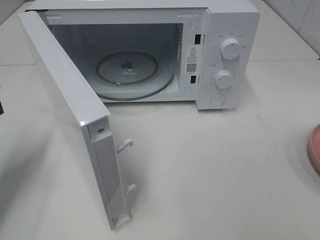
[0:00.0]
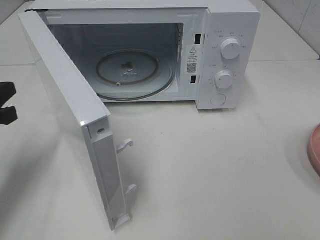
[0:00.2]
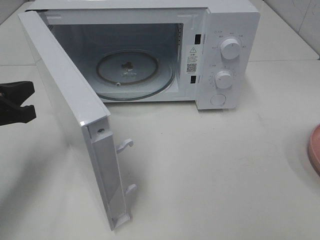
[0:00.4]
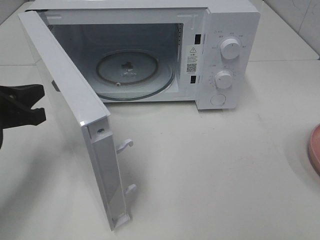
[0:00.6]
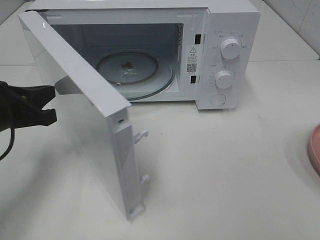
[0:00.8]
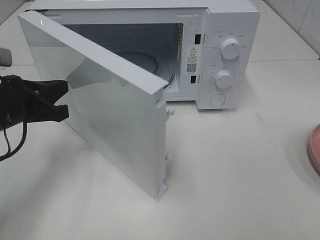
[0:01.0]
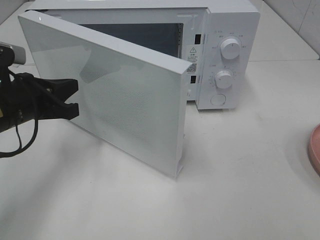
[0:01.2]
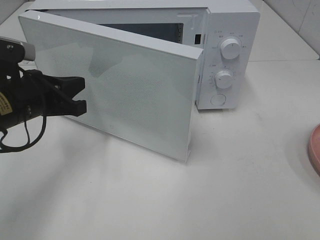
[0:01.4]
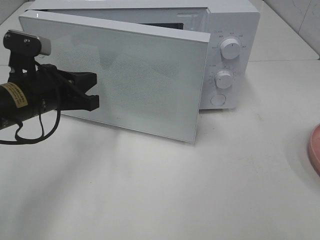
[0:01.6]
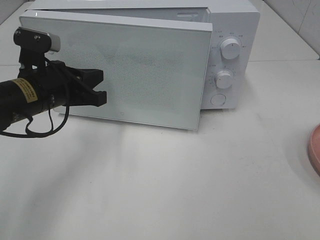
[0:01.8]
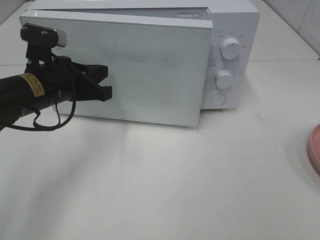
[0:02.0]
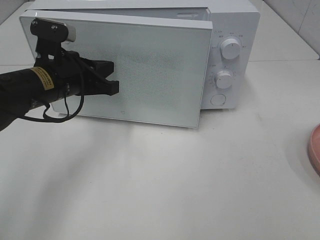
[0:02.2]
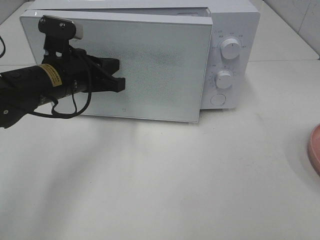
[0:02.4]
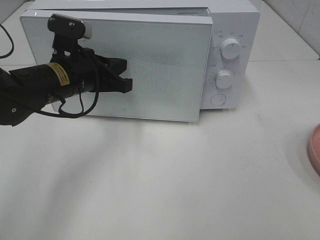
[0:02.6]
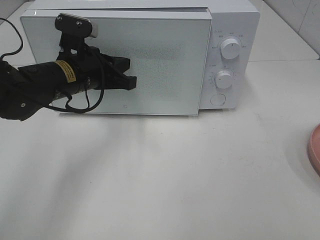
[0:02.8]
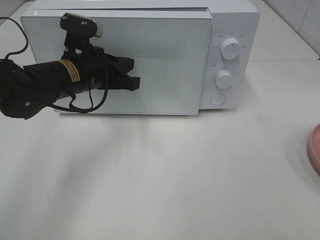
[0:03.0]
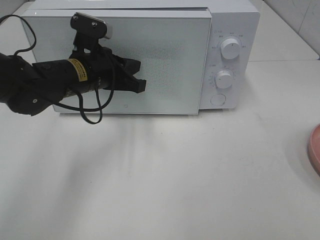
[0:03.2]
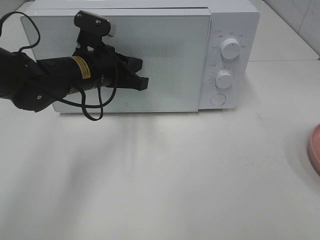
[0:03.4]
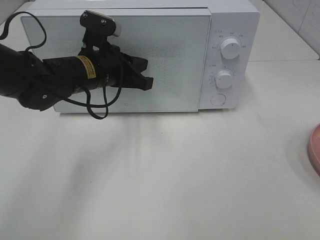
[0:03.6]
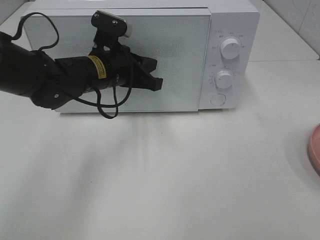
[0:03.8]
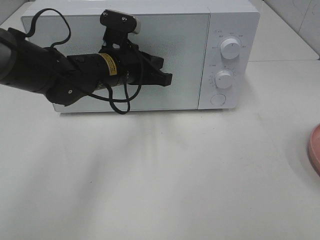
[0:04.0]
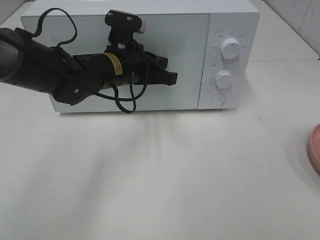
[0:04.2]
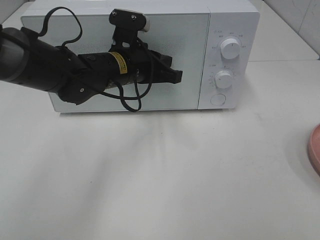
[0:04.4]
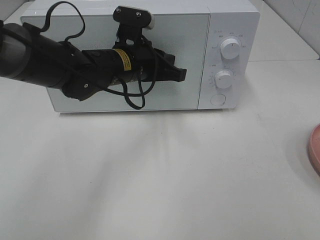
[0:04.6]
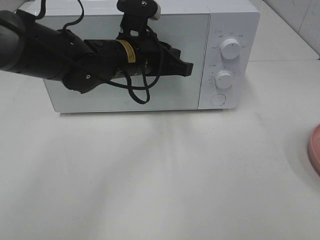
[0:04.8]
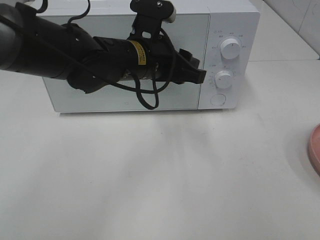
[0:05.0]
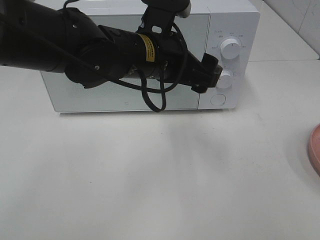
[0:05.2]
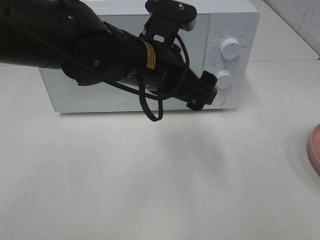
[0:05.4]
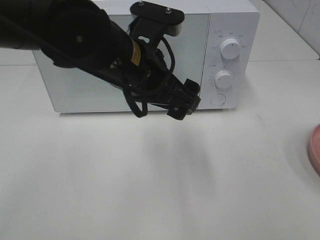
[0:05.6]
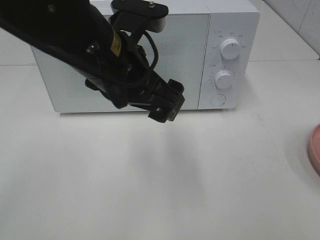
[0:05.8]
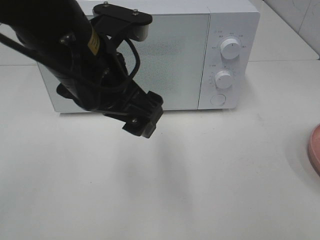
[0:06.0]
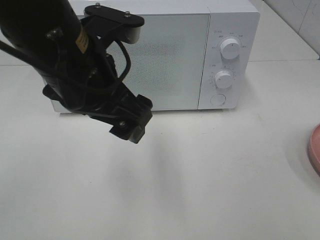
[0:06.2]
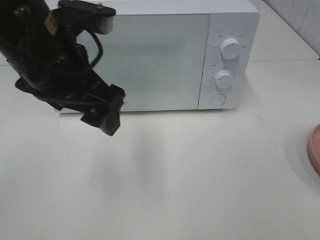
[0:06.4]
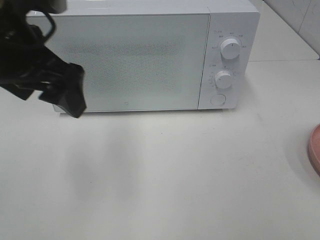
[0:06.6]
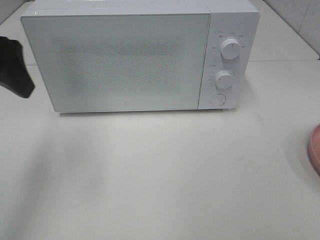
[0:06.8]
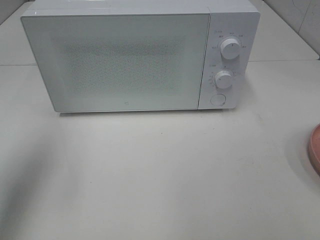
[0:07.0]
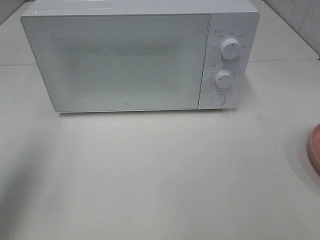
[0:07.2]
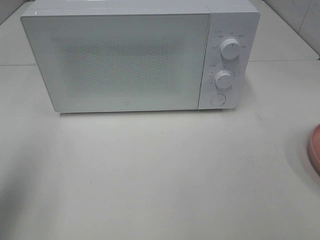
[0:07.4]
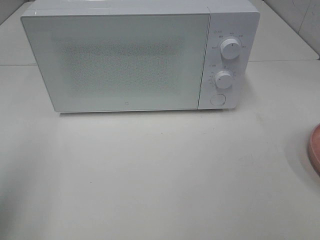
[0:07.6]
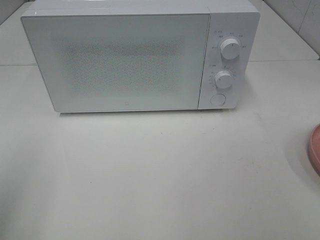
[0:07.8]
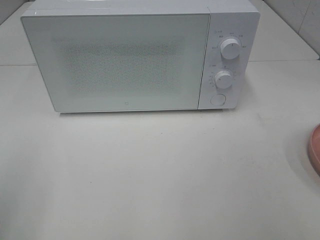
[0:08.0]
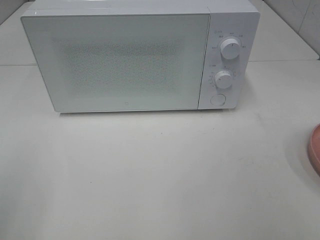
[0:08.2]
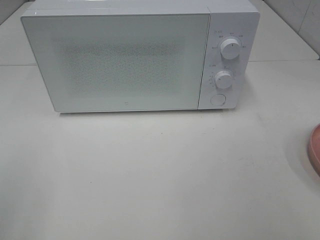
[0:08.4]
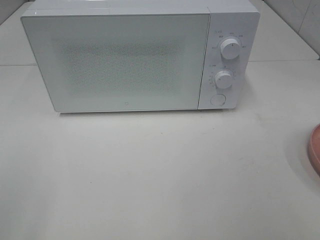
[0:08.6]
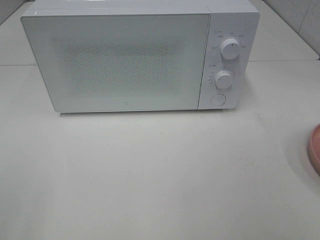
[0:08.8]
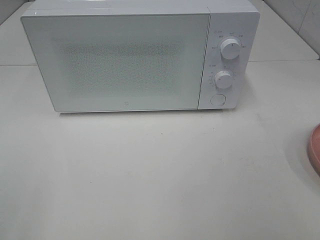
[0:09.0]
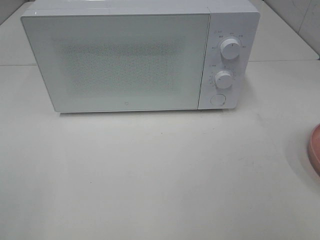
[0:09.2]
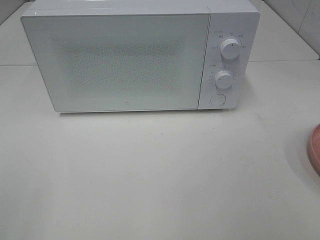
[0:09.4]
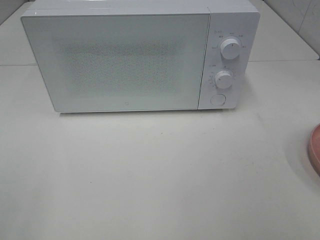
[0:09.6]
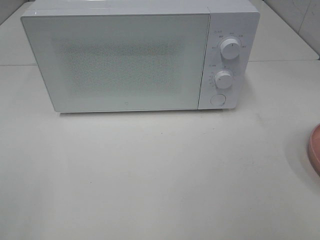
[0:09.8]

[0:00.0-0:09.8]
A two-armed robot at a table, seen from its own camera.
Task of the whole recording: Heat the burger.
Step, 0.0 to 4.8 s: Left hand: close the microwave door.
0.0 to 1.4 s: The left gripper shifts approximately 10 cm to the right.
1.4 to 2.8 s: The left gripper moves to the right and forward, roughly 10 cm.
2.8 to 4.2 s: The left gripper is displaced to the right by some 5 cm.
4.2 to 5.6 s: The left gripper travels backward and upward by roughly 15 cm, and opens up.
5.6 to 7.0 s: The left gripper moves to the left, roughly 25 cm.
7.0 to 8.4 s: The left gripper moves backward, approximately 20 cm.

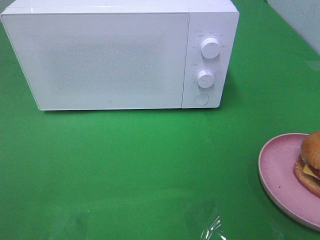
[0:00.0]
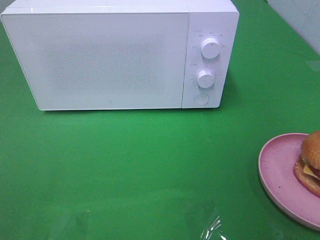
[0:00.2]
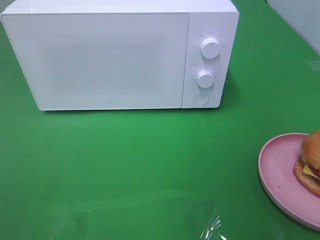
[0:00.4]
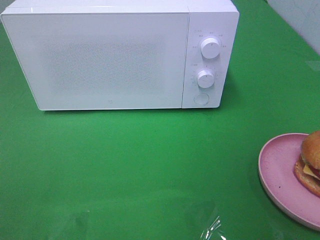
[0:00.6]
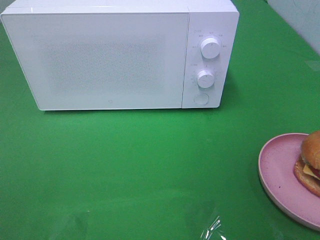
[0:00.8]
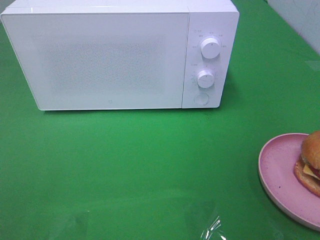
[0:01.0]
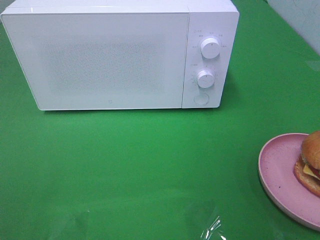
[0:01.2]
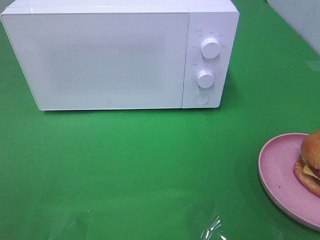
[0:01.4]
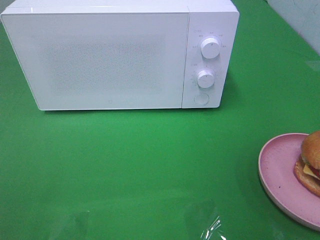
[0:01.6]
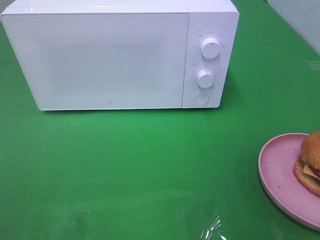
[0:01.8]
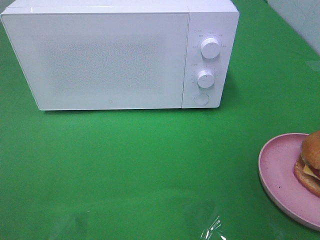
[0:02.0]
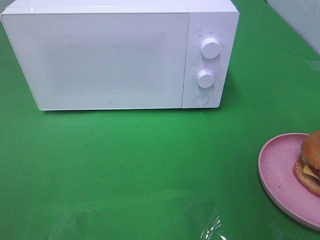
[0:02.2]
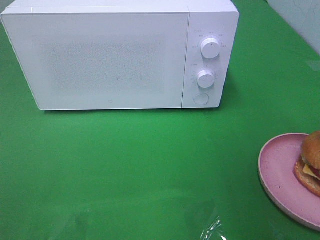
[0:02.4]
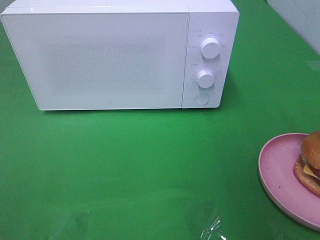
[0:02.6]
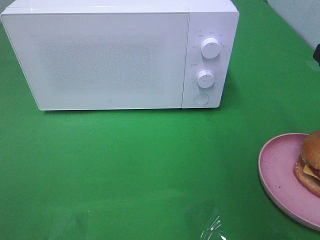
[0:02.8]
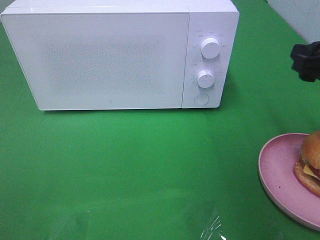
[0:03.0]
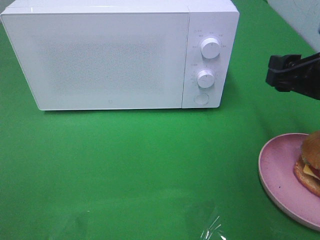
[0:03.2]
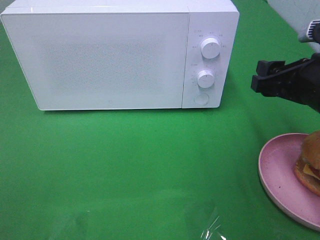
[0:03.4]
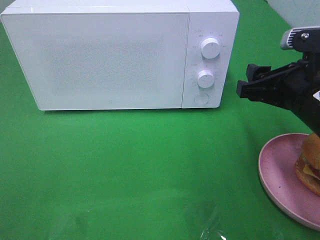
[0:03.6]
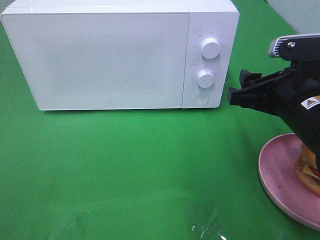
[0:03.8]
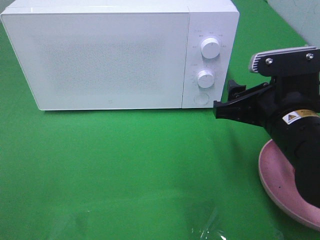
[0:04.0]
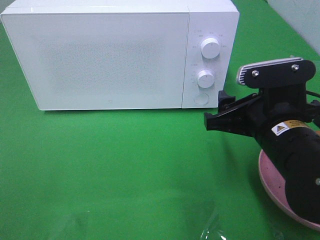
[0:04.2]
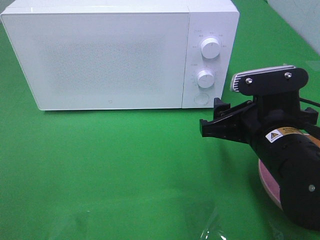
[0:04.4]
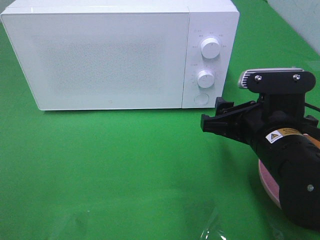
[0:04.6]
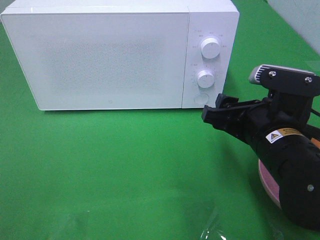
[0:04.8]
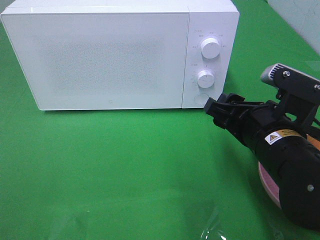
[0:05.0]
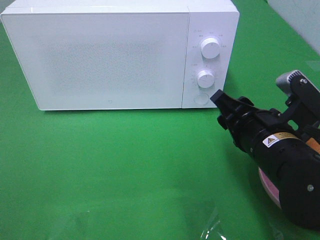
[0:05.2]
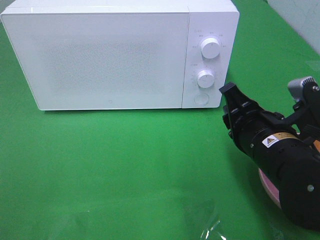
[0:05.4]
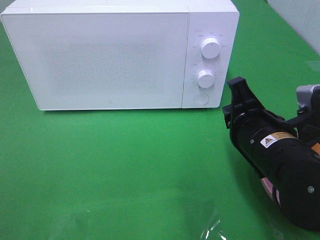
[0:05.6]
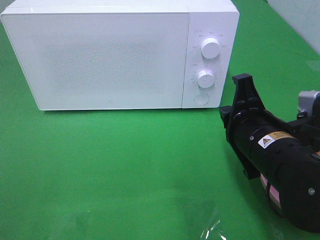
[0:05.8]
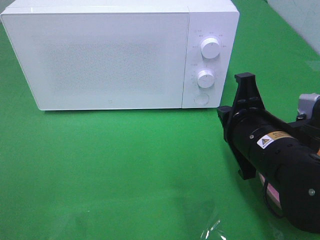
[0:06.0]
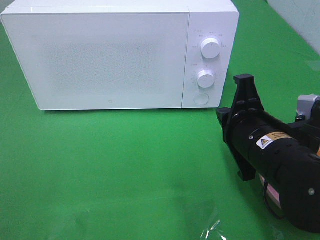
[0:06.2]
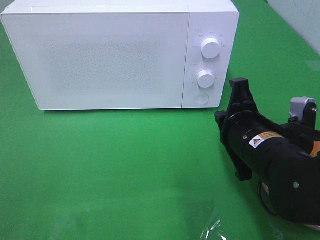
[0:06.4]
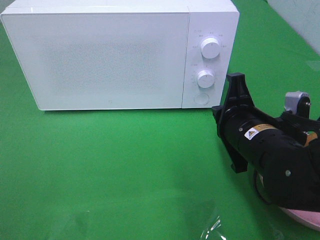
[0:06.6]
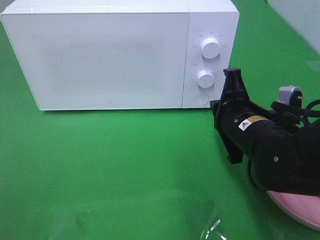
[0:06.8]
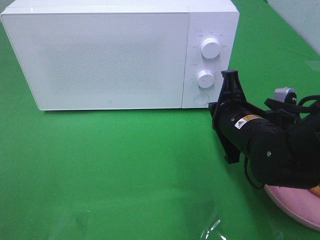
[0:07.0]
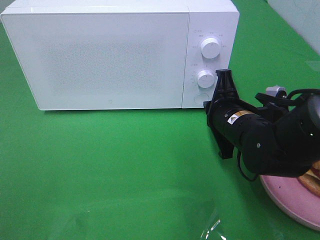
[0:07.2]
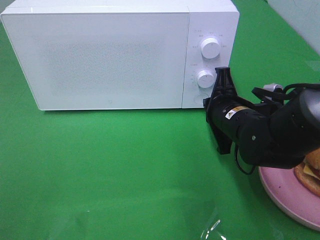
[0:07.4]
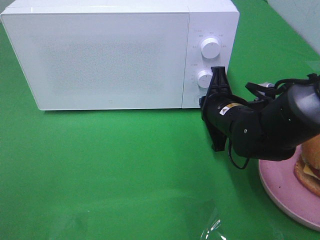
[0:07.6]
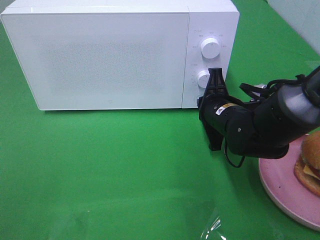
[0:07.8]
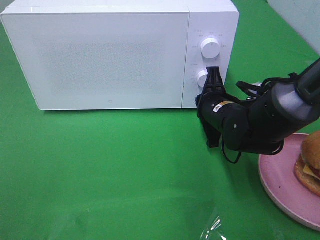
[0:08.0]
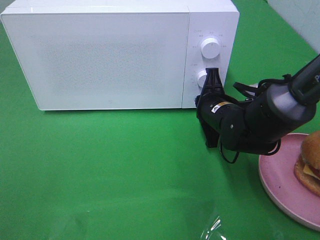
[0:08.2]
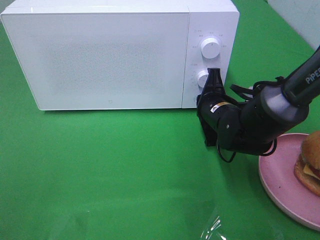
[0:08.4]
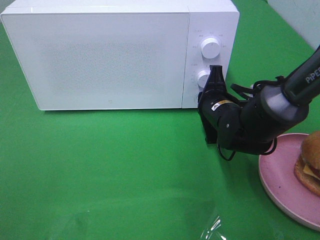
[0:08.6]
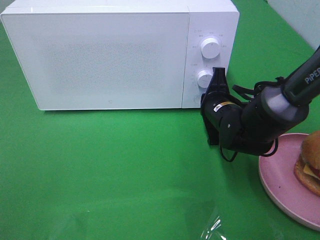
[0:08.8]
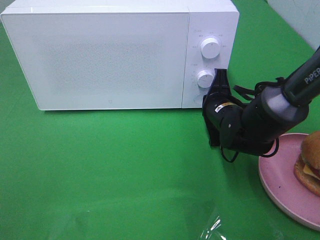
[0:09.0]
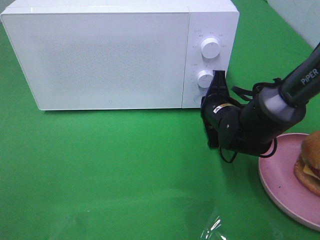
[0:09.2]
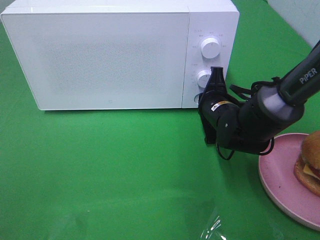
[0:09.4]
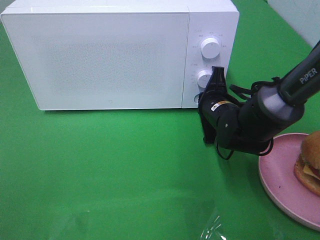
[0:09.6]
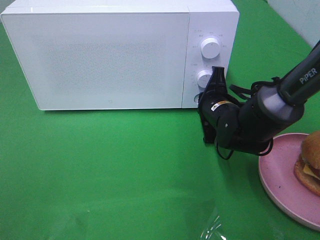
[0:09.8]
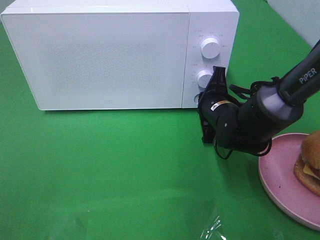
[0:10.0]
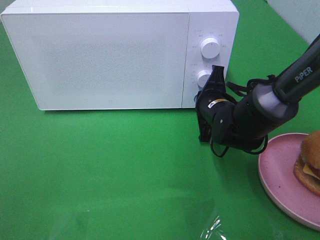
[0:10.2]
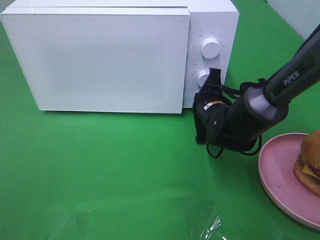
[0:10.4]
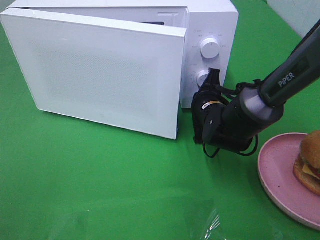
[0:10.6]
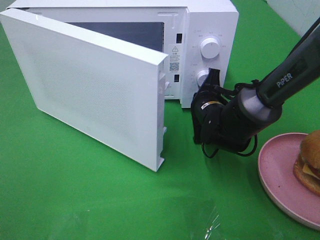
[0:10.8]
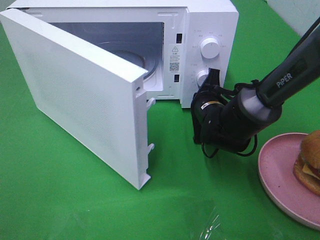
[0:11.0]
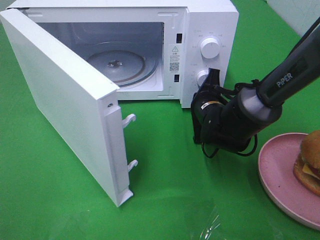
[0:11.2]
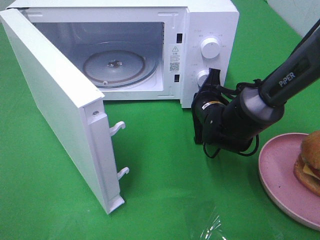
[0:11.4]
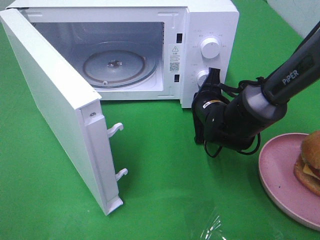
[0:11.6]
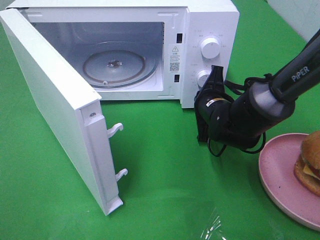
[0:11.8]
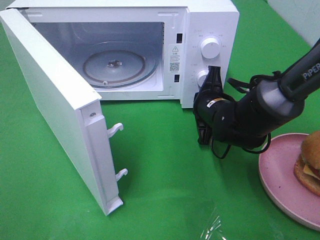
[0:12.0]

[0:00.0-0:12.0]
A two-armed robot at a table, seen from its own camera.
Task of the whole recording: Heat the burger.
1.6 to 3.0 s: The right gripper moves forward and downward, some 15 cm.
3.0 to 4.4 s: The right gripper moves to the left and downward, approximately 15 cm.
4.4 to 6.0 s: The right gripper closes up.
6.0 to 7.6 s: The right gripper goes some 10 cm forward and downward.
7.6 to 10.4 s: There are only small adjustments of the grippers.

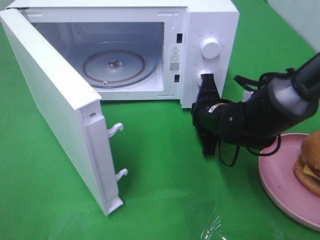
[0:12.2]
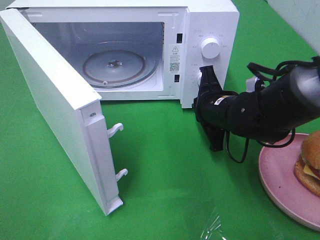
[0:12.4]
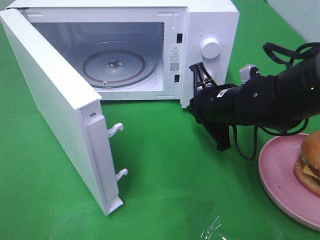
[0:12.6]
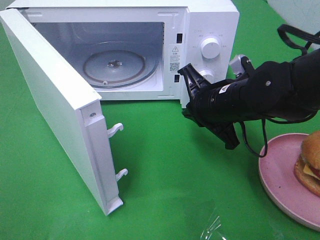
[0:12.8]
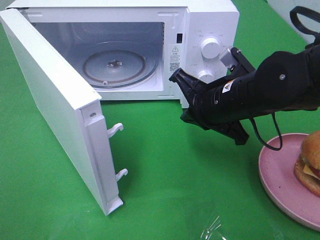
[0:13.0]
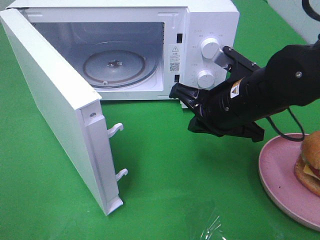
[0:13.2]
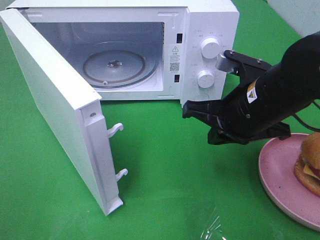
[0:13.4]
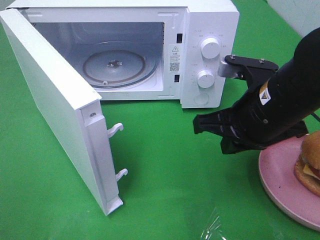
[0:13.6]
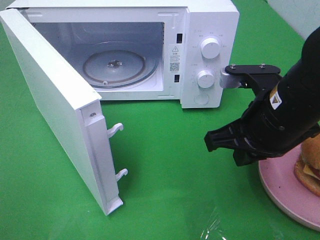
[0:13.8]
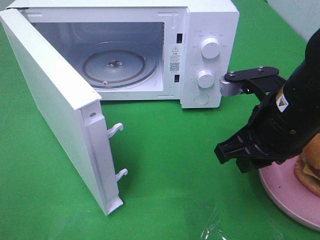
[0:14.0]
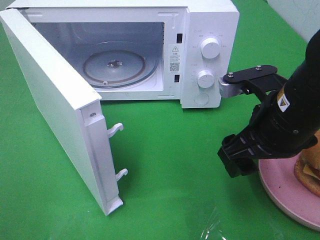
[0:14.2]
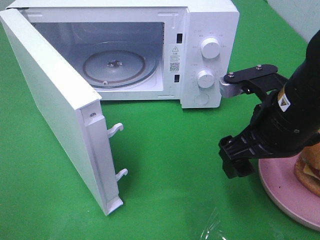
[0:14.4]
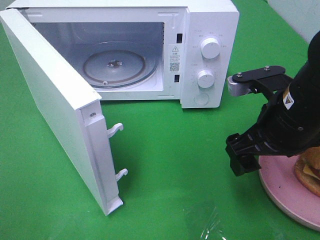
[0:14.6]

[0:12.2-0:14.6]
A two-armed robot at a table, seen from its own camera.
Task of the whole recording: Heat the burger.
12.2 to 13.4 s: The right gripper travels upward and backward by some 15 cm.
13.4 to 14.6 s: The right gripper opens.
